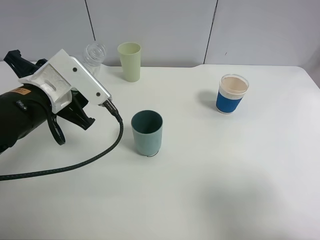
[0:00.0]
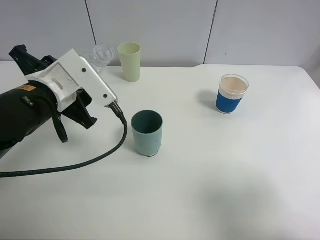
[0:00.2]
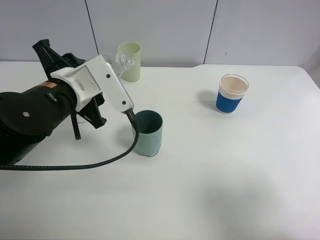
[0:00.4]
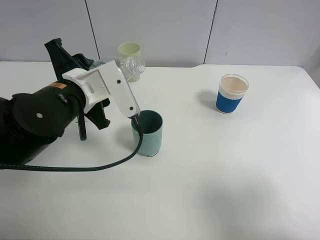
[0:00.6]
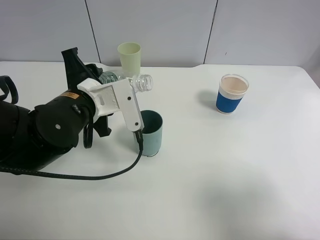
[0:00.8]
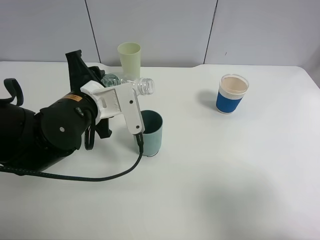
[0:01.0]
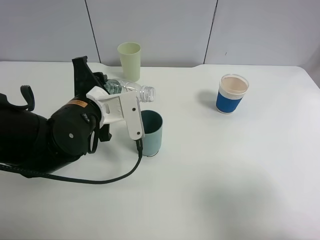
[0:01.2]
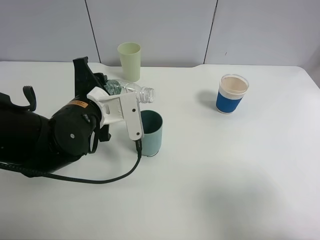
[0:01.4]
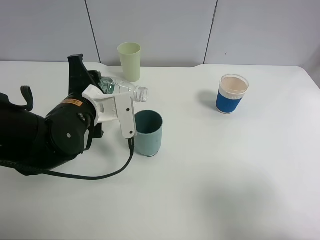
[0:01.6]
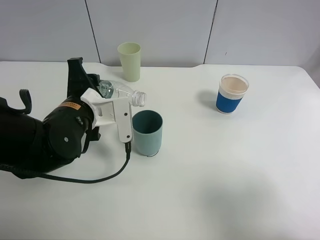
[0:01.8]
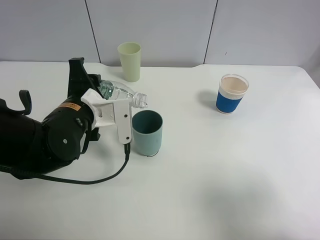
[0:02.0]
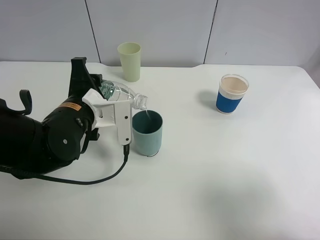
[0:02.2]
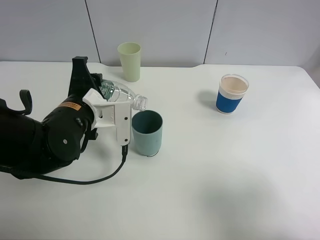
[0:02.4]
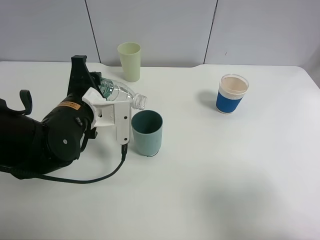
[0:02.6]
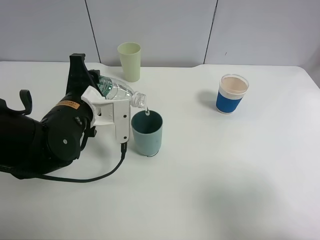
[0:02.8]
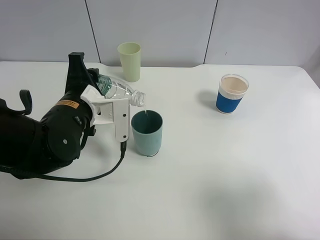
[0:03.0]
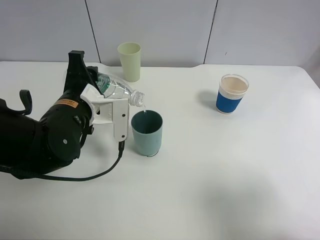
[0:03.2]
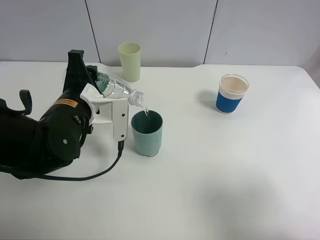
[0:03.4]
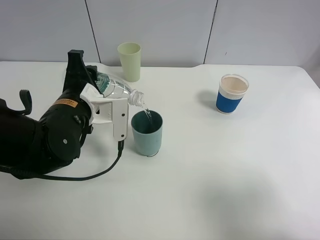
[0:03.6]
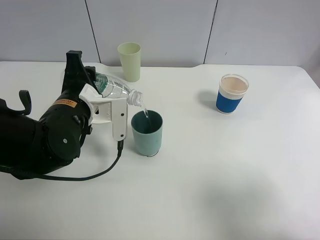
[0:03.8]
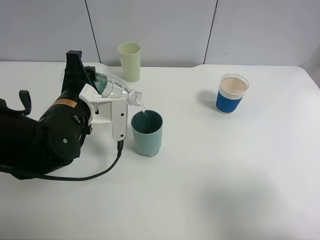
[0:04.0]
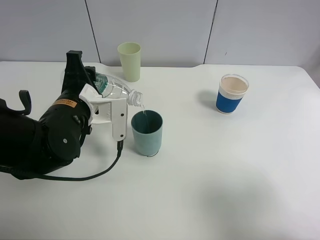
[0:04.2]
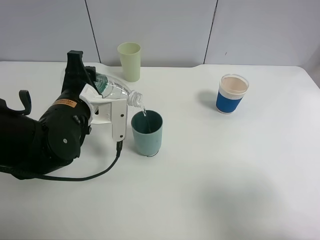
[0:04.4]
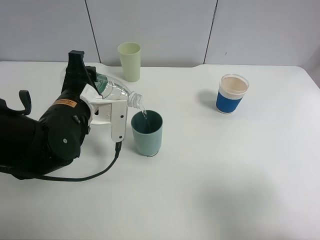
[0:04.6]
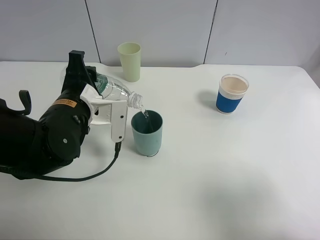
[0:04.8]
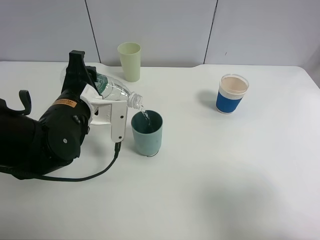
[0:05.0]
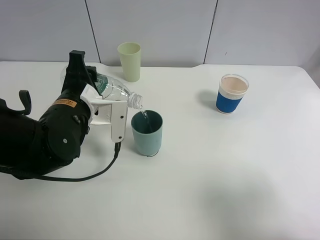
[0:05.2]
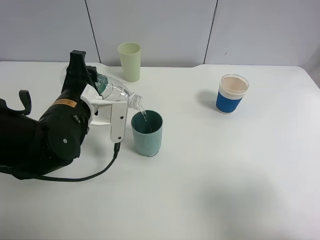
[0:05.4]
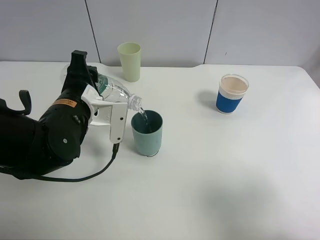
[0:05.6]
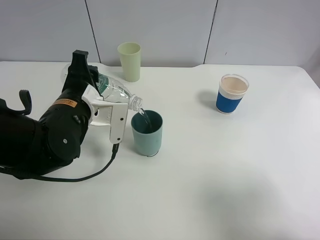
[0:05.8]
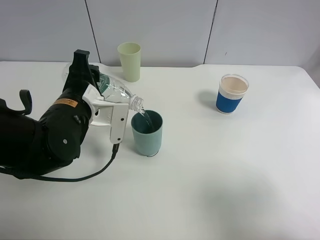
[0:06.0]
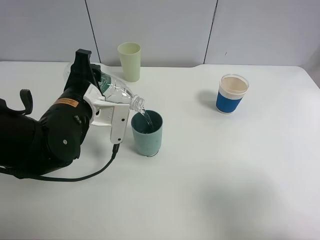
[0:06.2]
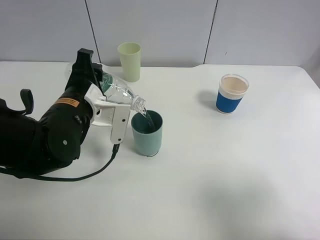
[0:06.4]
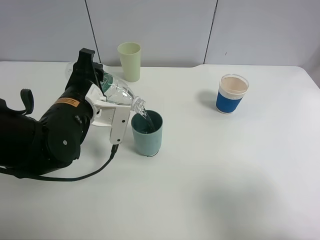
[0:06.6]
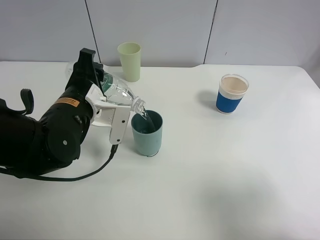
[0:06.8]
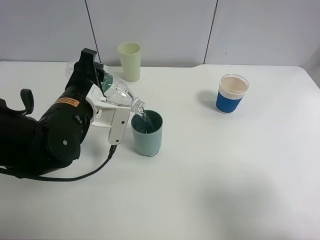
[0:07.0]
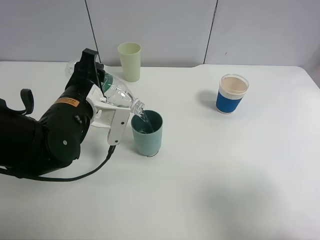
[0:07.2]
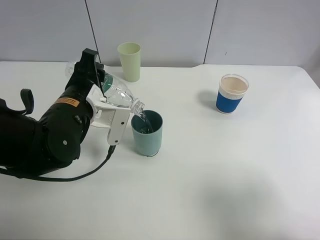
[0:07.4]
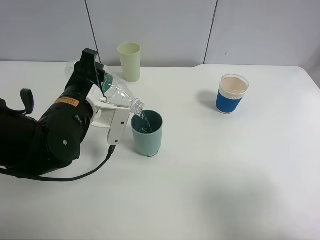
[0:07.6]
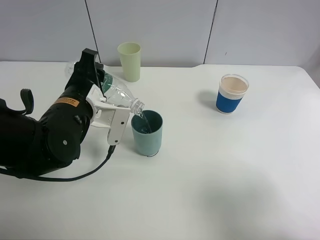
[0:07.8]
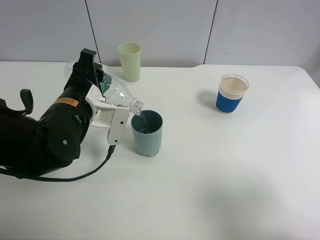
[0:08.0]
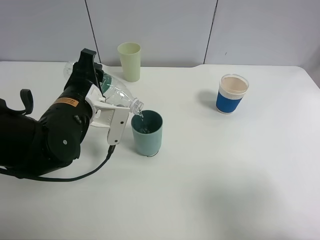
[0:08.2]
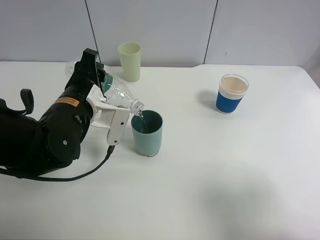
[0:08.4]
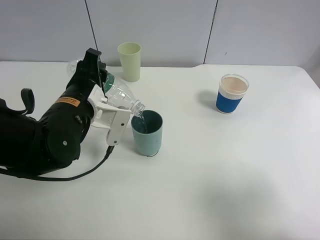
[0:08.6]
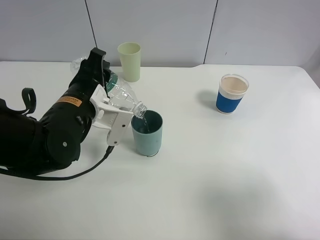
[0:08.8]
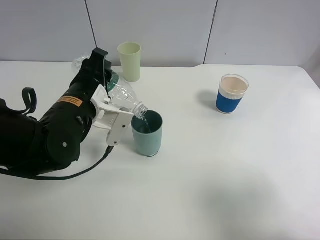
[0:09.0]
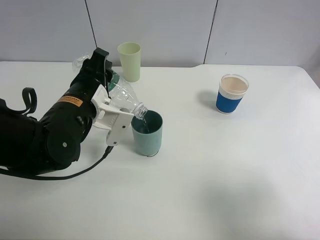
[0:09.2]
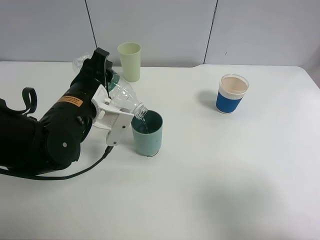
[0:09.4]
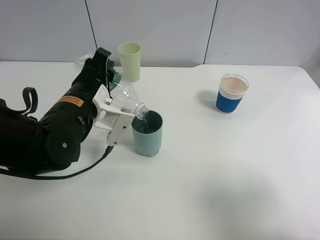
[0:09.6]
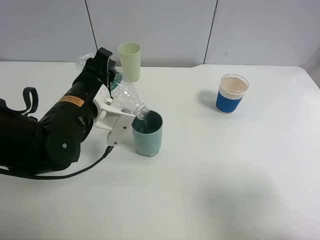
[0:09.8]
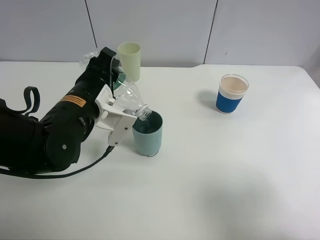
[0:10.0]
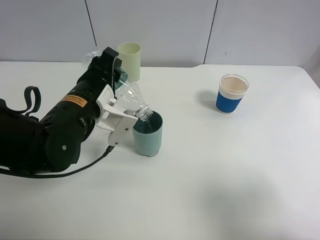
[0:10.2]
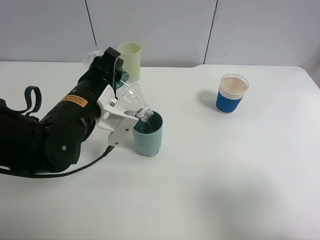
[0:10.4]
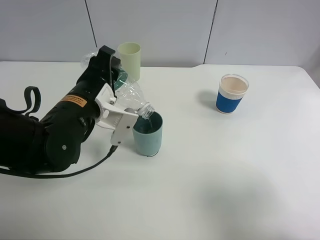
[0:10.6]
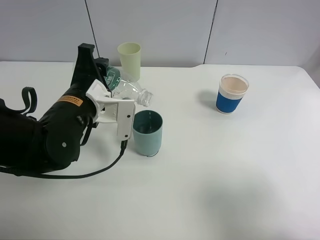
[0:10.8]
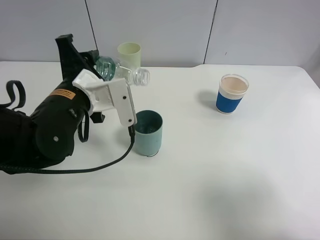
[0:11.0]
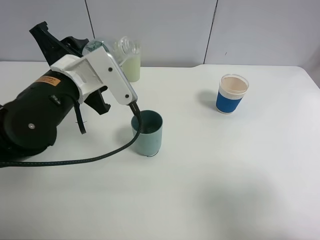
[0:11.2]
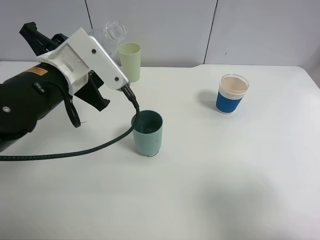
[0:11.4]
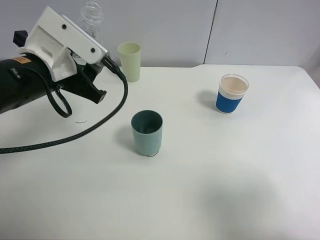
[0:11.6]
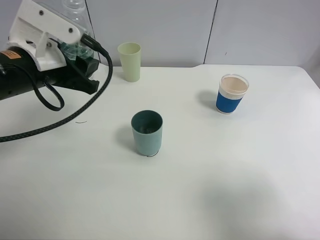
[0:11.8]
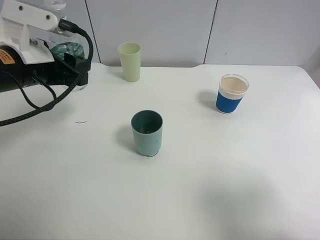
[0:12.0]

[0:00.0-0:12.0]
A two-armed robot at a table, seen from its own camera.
Task of the whole recording: use a clamp to hold the bottle of the drink, pour the beverage into a random cup, then clamp the cup containing the drink and pour the drink into another random cup.
Step, 0:00.0 to 0:11.0: Pour the water into the blue plastic cup with left gripper.
0:00.0 to 0:01.6: The left gripper ends up some 5 cm from where it was.
0:01.6 to 0:03.0: The grippers stay close to where they were, moving slightly.
0:03.0 to 0:04.4: Both grippers stay about where they are.
0:04.4 to 0:07.6: The grippers stay close to where they were, moving slightly.
0:07.6 to 0:10.4: There are only small adjustments of the grippers.
0:10.4 to 0:12.0: The left gripper heads to the left and upward, covering approximately 10 cm.

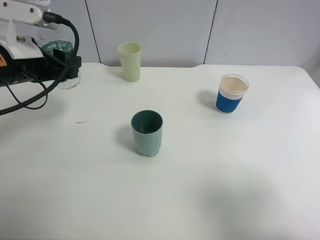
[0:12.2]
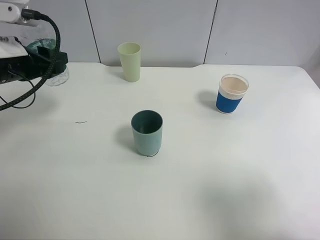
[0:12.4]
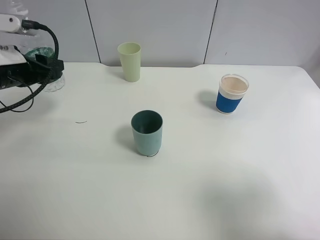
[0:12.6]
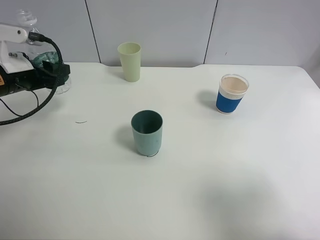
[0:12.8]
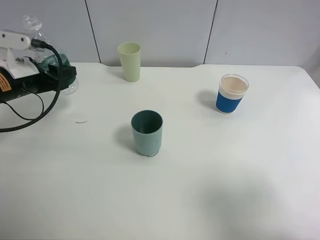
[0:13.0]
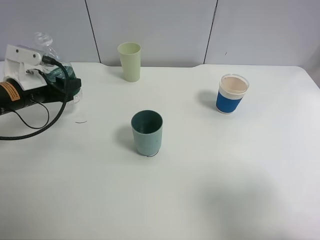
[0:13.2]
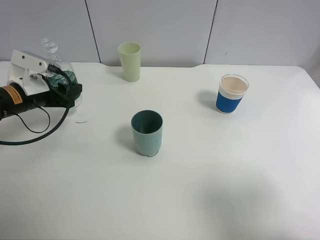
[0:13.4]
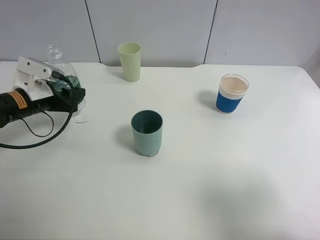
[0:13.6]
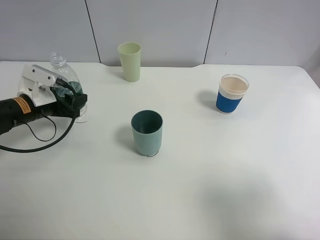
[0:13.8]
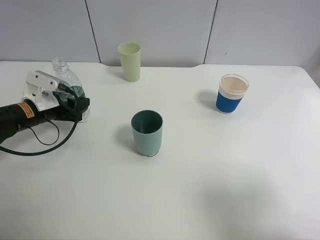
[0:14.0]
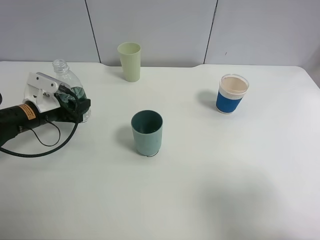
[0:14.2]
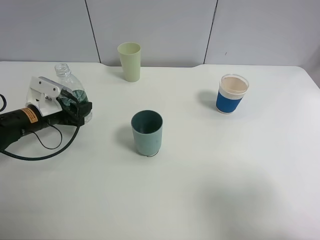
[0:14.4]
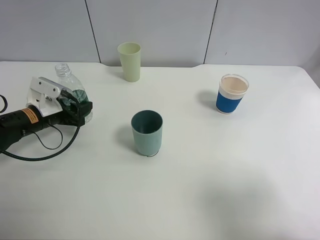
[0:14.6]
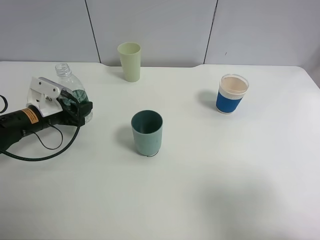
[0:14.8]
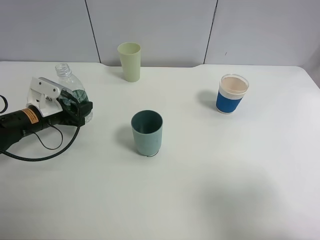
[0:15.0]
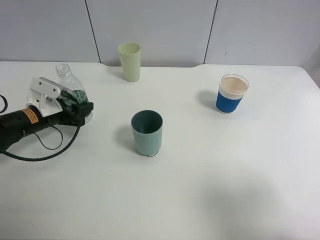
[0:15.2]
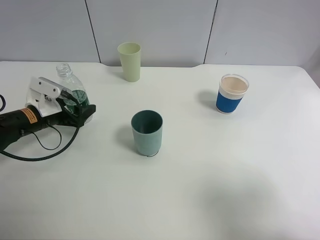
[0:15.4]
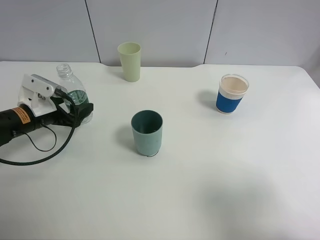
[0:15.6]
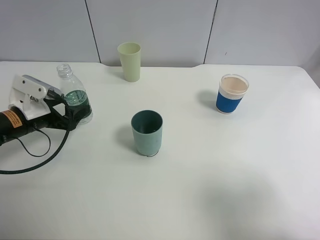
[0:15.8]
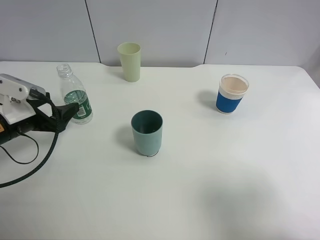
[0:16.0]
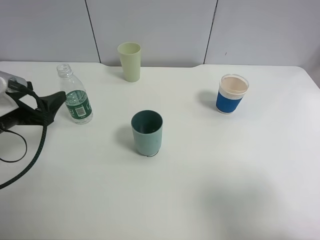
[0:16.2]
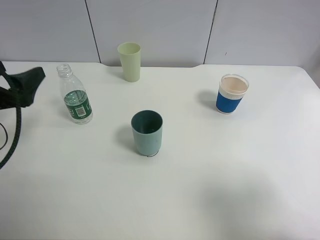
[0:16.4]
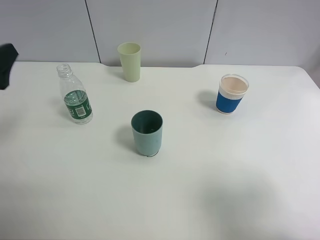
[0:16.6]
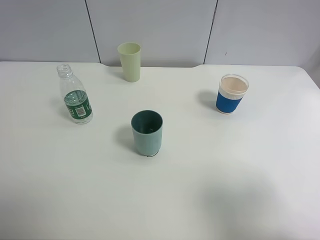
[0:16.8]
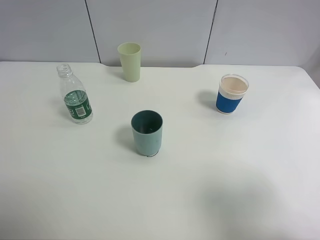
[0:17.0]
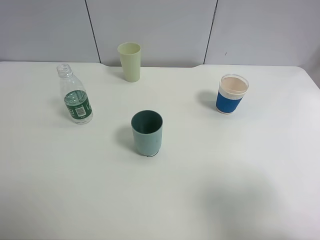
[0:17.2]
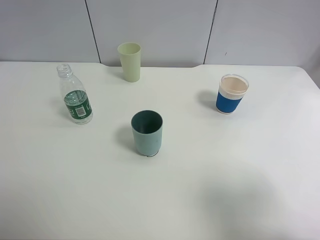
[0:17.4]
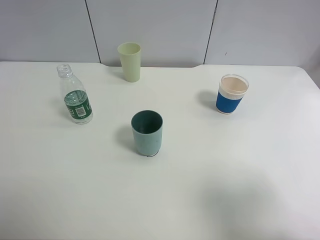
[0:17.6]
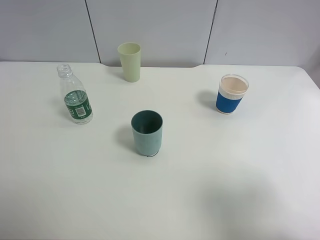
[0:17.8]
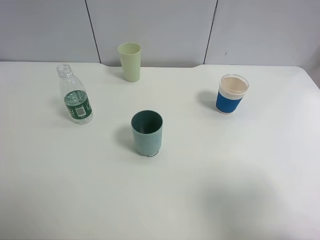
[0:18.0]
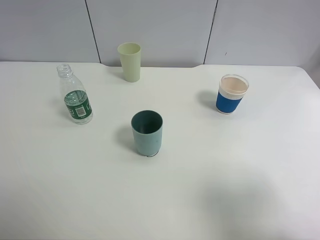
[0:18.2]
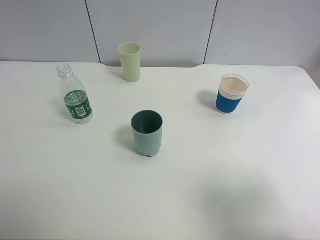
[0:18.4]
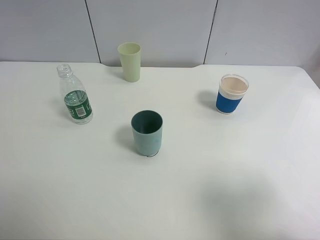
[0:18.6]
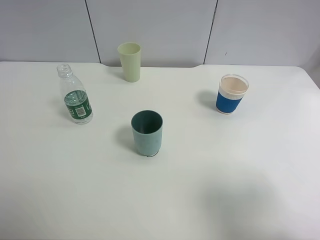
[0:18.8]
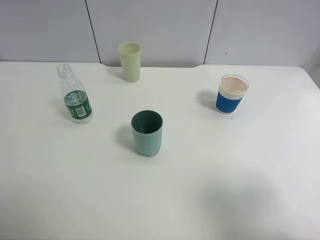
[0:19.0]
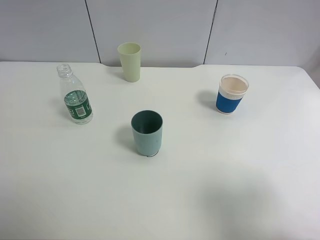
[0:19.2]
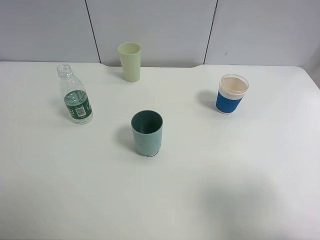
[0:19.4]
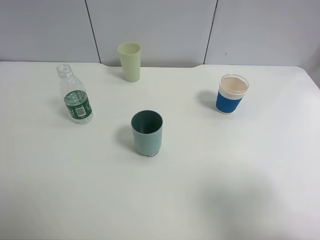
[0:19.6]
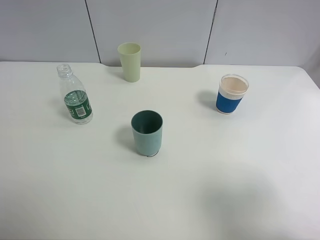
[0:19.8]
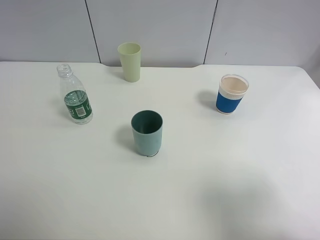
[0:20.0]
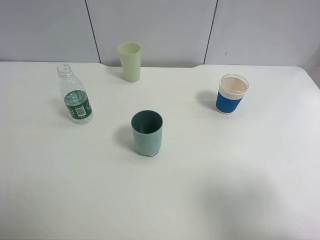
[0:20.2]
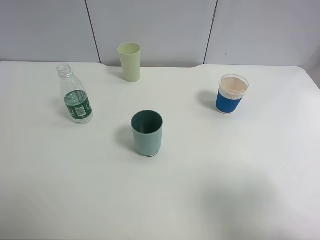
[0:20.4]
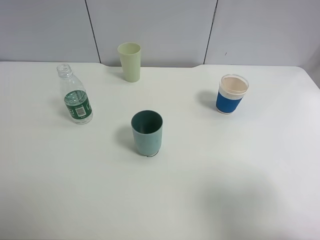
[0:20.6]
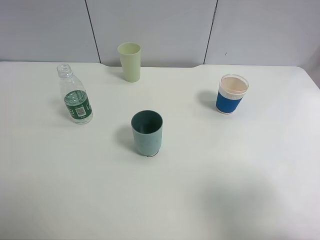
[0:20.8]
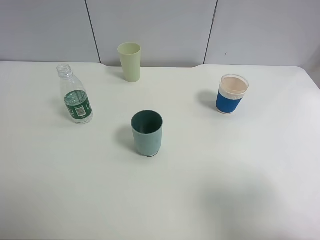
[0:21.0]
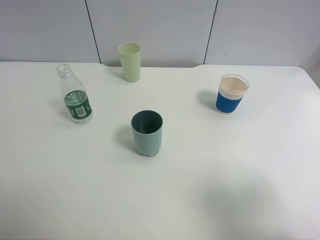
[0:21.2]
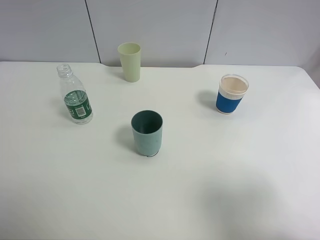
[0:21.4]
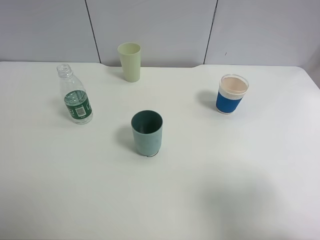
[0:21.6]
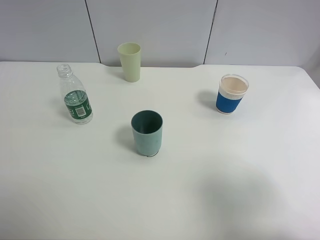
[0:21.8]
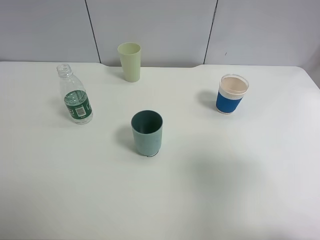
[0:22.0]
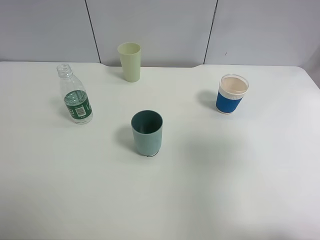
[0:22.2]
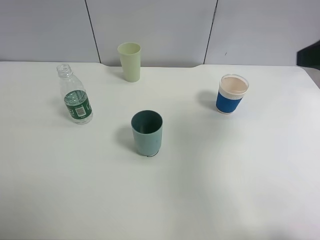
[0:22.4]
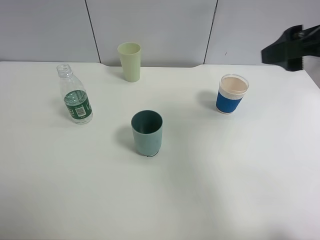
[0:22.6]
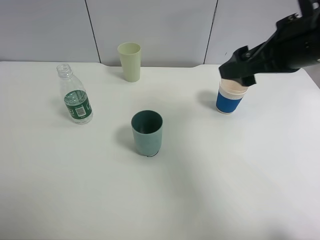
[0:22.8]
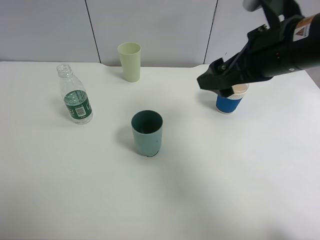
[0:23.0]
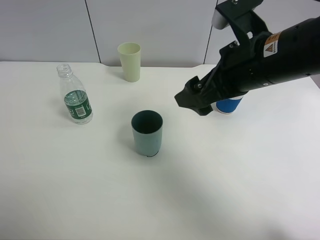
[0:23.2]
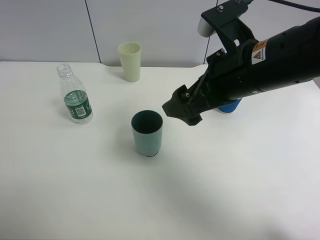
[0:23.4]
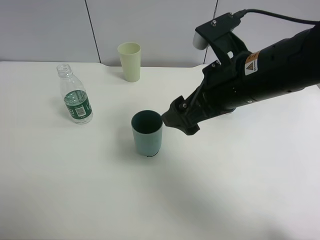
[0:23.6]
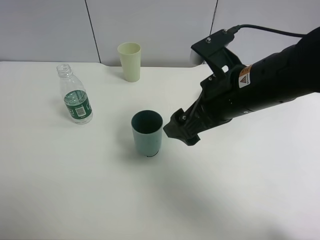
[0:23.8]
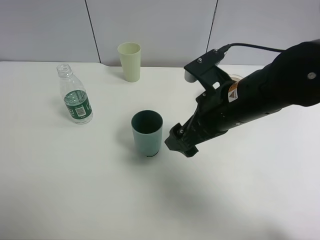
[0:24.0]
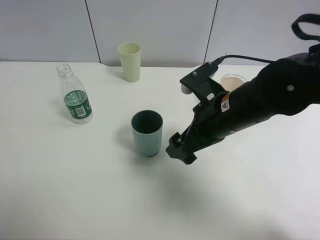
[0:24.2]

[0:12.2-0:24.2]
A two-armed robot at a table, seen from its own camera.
Task of the whole recording: use a clamp to hold the bottle of the drink, pour the beverage into a random cup, then clamp the cup containing the drink and pour the drink into another random cup.
Step, 0:12.2 to 0:15.4: Place the water bottle on the table with left gripper.
0:12.2 to 0:13.8: The left gripper travels downward by some 15 cm.
0:13.8 to 0:15.2: The left gripper opens.
0:15.2 to 0:16.6: The left gripper travels upward and backward by roughly 20 cm.
0:16.6 to 0:18.2: The left gripper travels backward and upward by about 20 cm.
0:19.8 to 0:21.2: The two grippers keep their place.
0:21.2 to 0:22.6: The right gripper shifts some 20 cm forward.
0:22.6 to 0:24.2: The right gripper goes some 20 cm downward and to the left.
